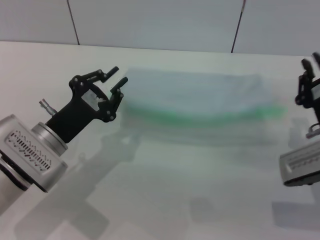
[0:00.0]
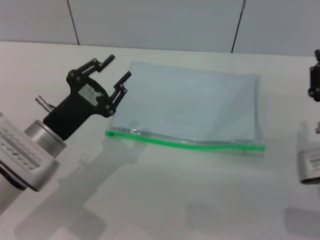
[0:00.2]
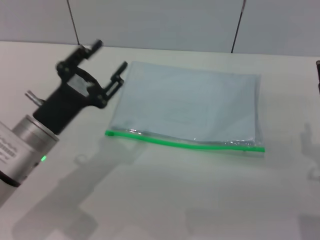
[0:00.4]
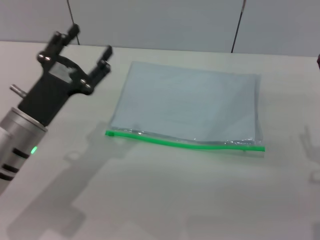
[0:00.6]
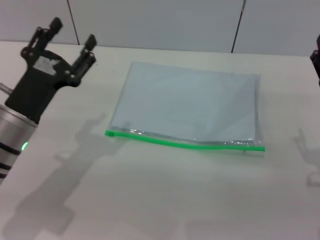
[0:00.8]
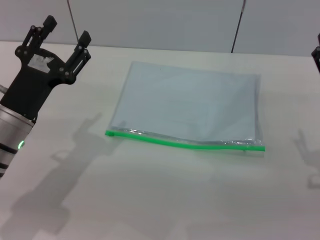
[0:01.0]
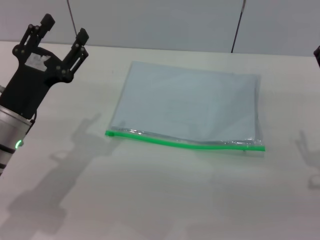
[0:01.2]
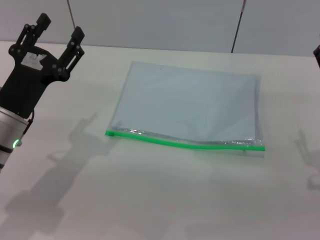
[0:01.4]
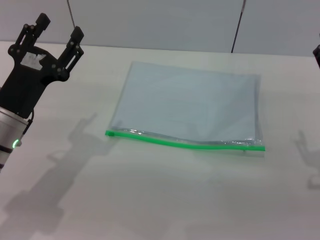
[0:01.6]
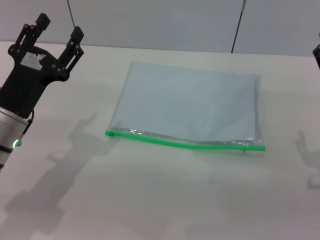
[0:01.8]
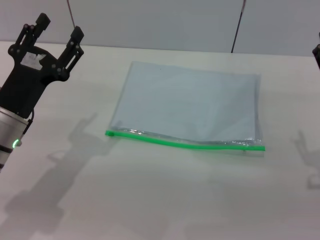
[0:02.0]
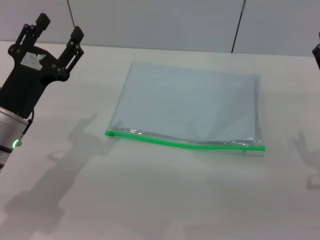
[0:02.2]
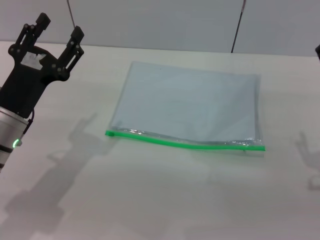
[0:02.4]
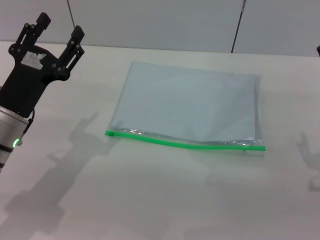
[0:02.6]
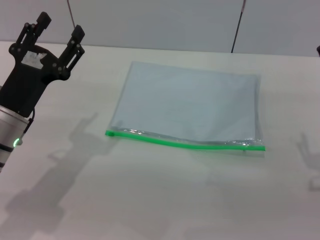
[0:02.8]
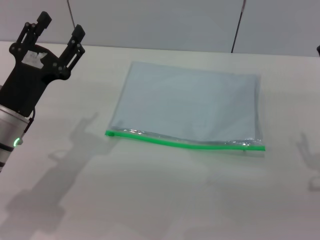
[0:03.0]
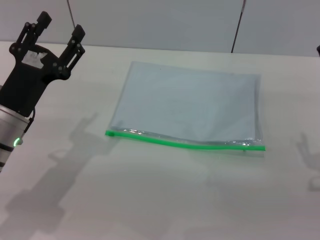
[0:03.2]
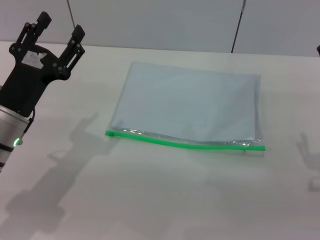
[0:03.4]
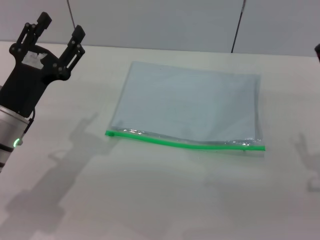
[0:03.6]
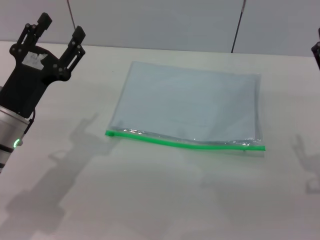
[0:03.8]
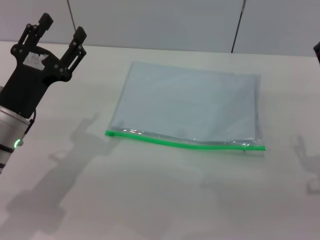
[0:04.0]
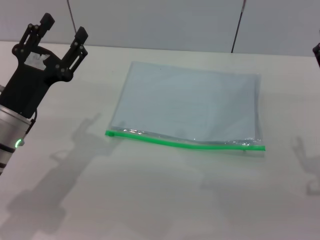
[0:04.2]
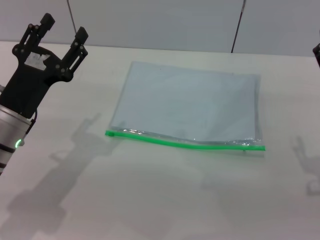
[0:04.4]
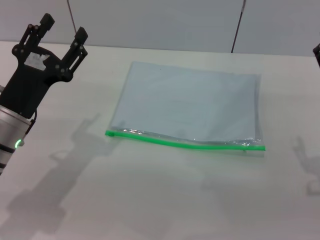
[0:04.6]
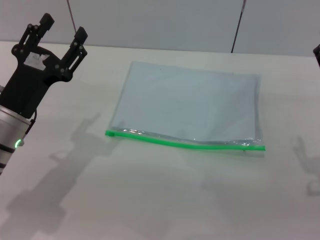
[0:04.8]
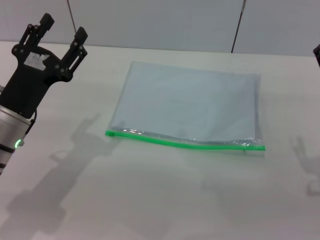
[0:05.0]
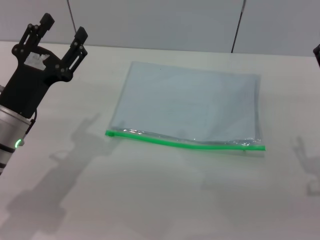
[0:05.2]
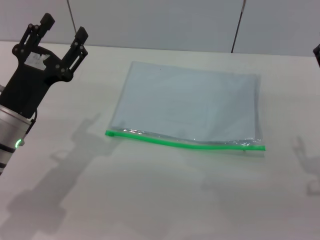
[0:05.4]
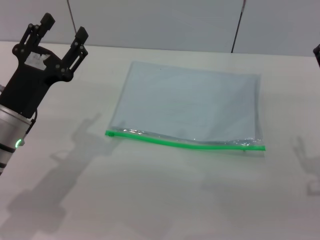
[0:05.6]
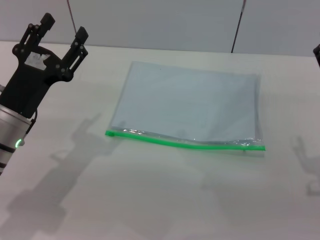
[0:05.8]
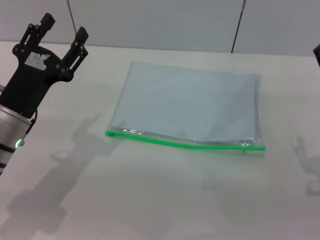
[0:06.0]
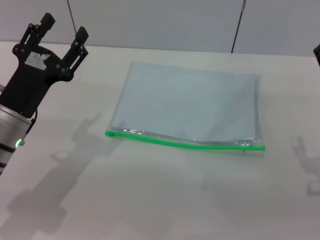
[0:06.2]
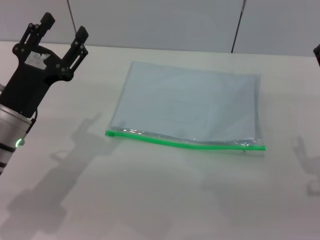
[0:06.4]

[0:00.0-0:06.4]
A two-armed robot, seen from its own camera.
Step, 0:00.4 to 0:01.8: Place the transparent plastic bag.
0:00.0 to 0:01.6: The right gripper opens up. The left gripper opens.
0:01.6 to 0:06.4: Both grippers stay put.
